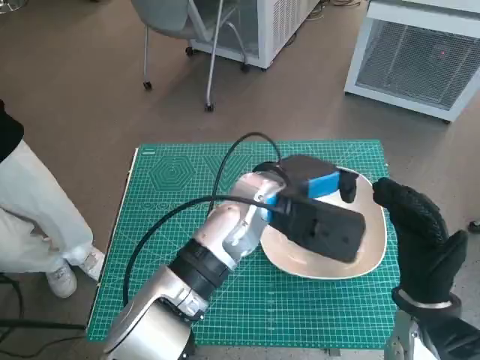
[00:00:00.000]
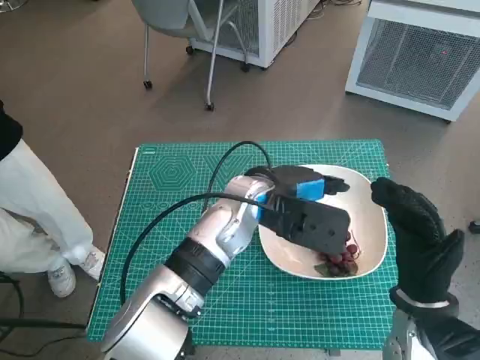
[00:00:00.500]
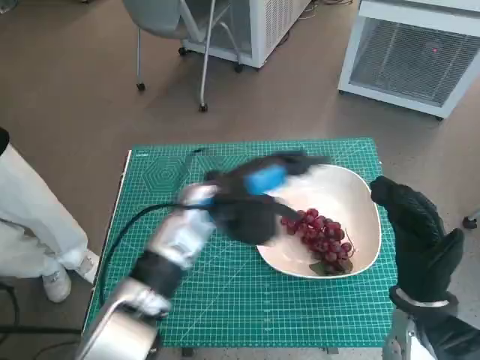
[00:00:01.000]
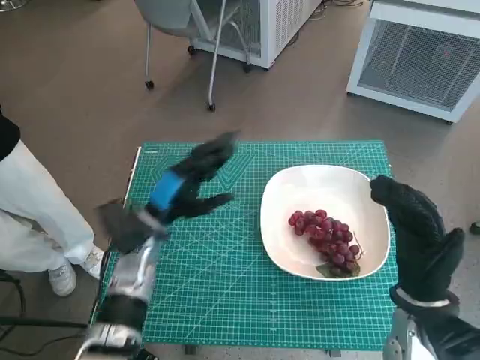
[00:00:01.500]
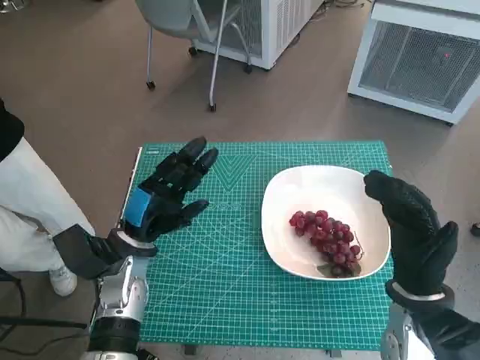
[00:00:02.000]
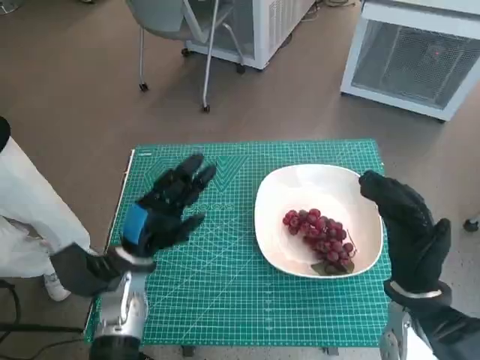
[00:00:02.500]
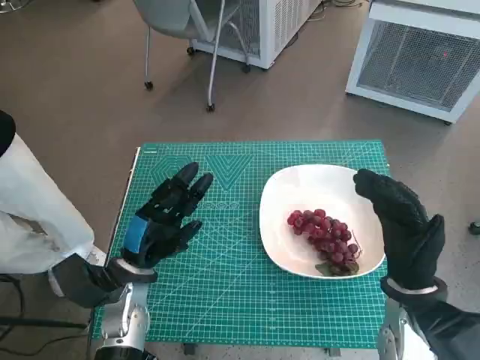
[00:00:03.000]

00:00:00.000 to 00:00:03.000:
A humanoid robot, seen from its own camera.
Task of the whole recording: Pick up the grapes and put them on the plate.
00:00:00.000 to 00:00:01.500: The left hand heads to the left and downward, covering approximately 20 cm.
00:00:01.500 to 00:00:03.000: The left hand heads backward and downward, covering some 10 cm.

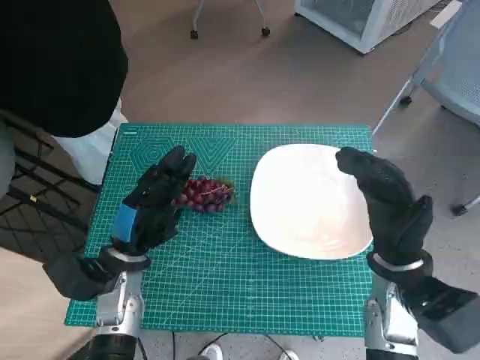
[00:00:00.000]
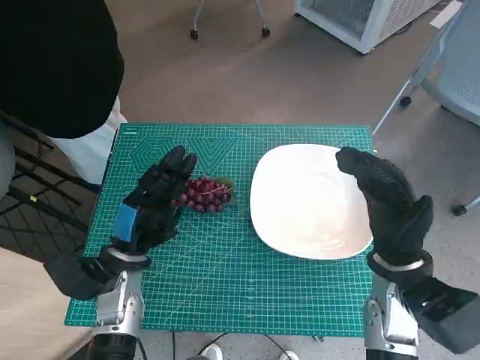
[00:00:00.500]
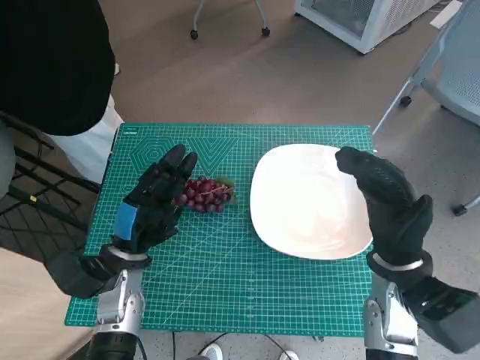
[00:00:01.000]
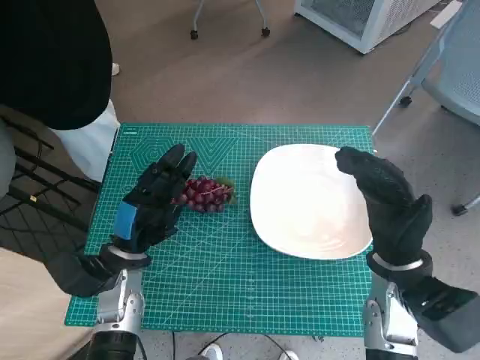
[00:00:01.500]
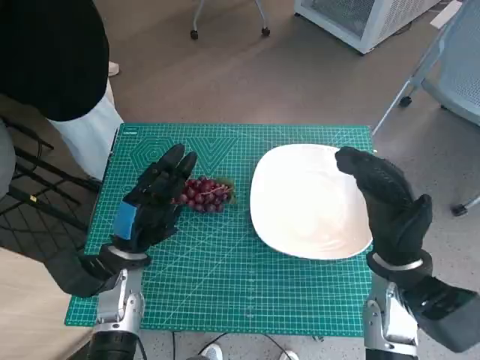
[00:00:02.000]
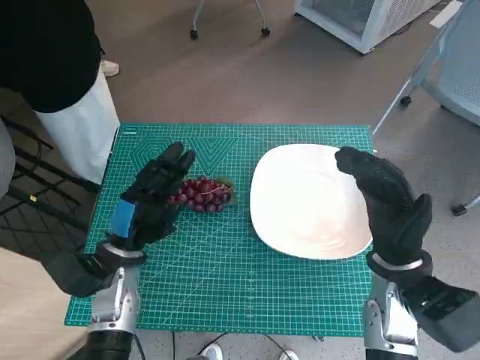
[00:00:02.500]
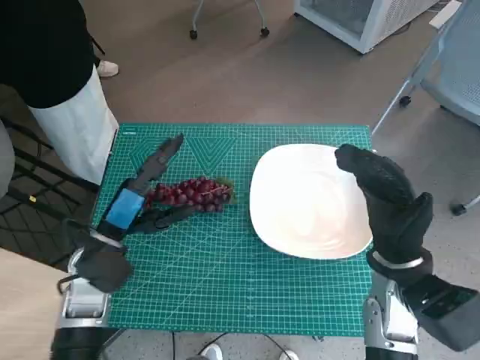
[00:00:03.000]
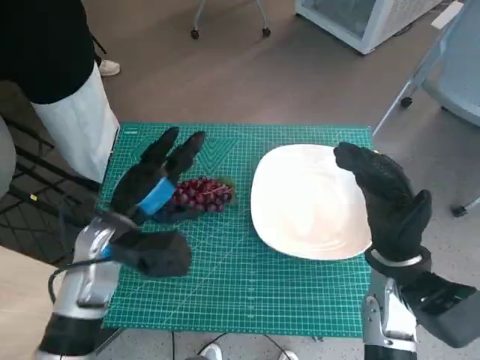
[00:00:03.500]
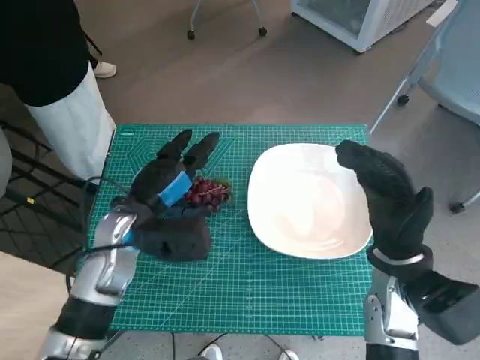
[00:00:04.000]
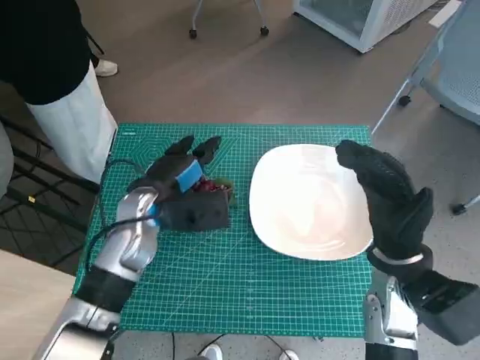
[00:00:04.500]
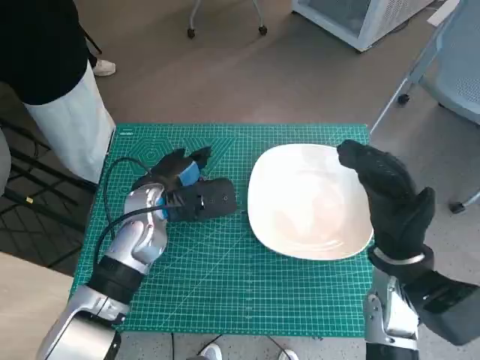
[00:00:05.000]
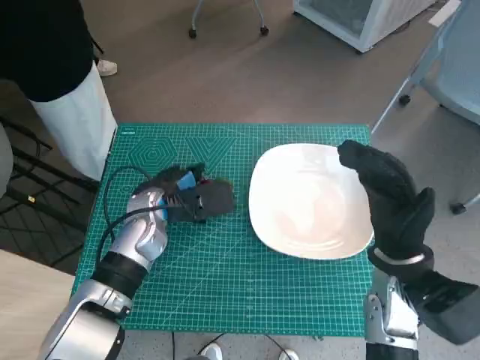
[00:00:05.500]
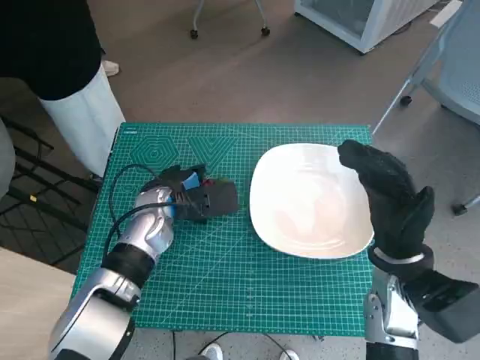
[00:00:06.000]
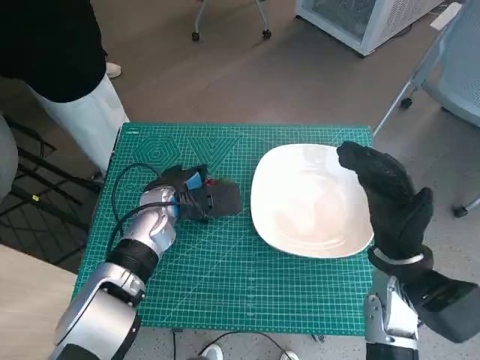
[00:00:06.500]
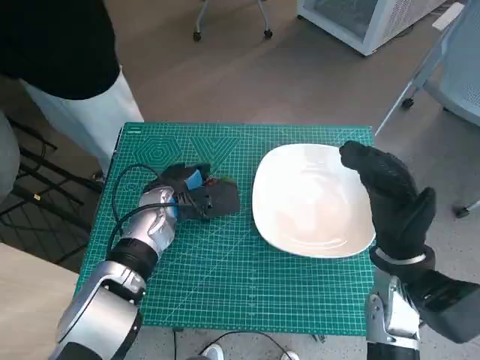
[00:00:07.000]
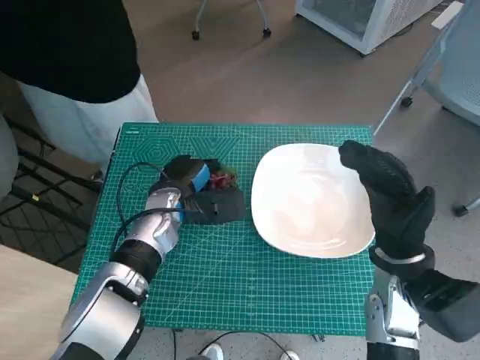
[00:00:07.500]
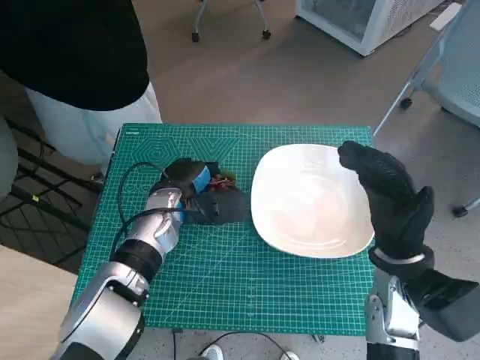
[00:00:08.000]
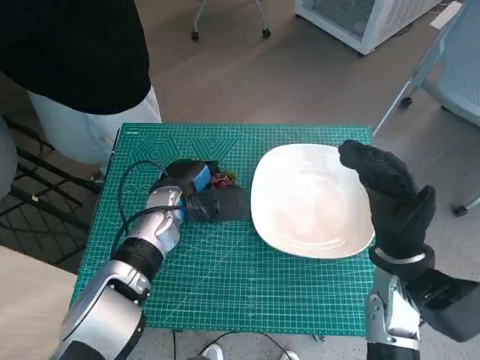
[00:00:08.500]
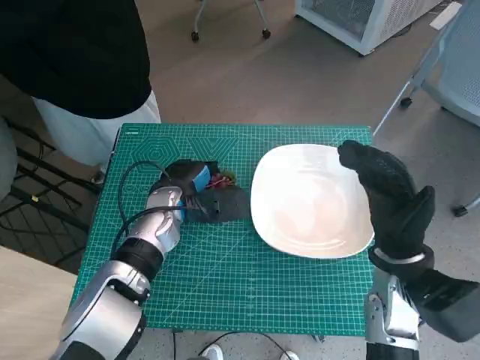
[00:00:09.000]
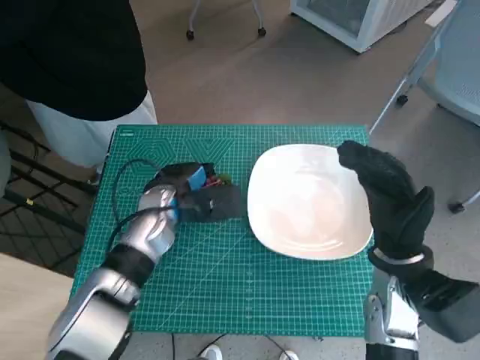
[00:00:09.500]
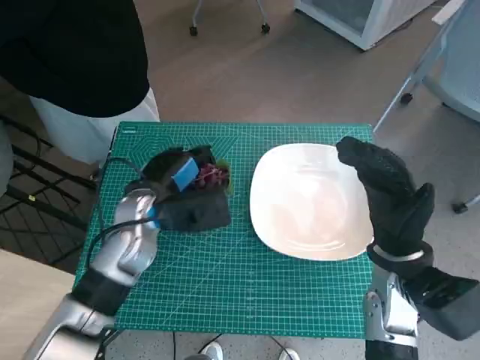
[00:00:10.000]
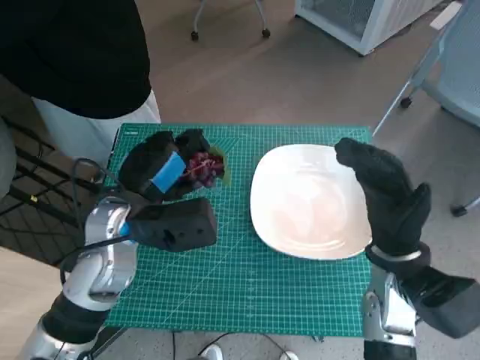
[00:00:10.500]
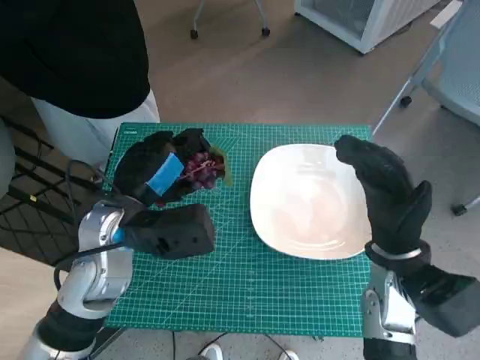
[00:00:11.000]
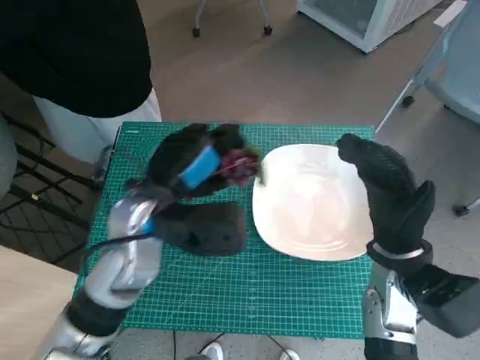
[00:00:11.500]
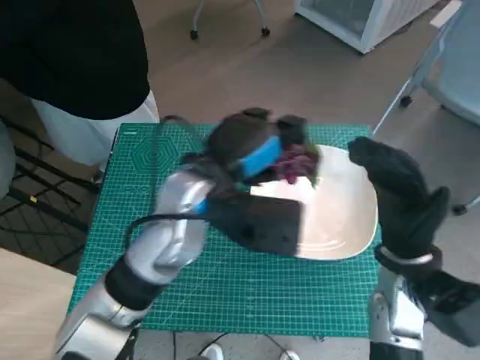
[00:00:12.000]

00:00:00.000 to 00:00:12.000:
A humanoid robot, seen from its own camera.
Task of the whole recording: Pick up the grapes and put them on the plate.
Step, 00:00:00.000 to 00:00:07.500: Grasp the grapes with left hand.
00:00:02.000 to 00:00:04.000: The left hand travels upward by roughly 5 cm.
00:00:04.000 to 00:00:06.000: The left hand travels forward by about 5 cm.
00:00:06.000 to 00:00:08.000: The hands stay close to where they were, moving slightly.
00:00:08.000 to 00:00:10.000: The left hand changes place by approximately 5 cm.
00:00:10.000 to 00:00:12.000: The left hand moves upward and to the right, about 10 cm.

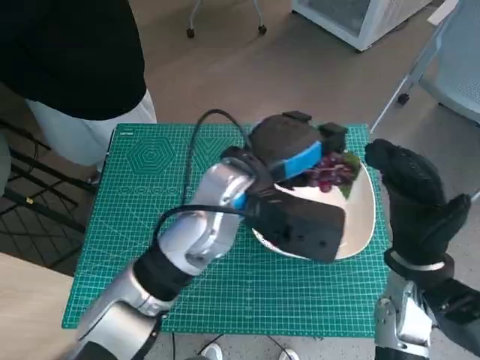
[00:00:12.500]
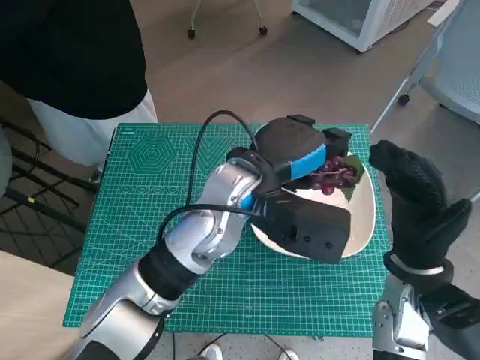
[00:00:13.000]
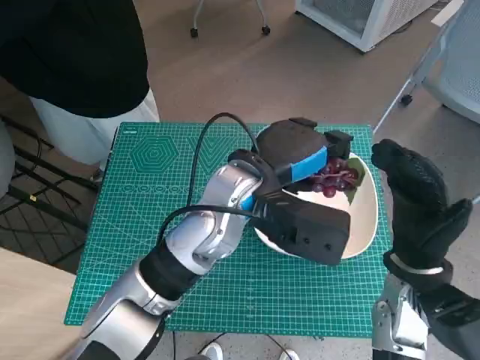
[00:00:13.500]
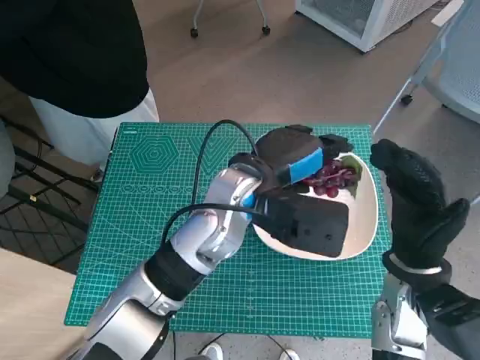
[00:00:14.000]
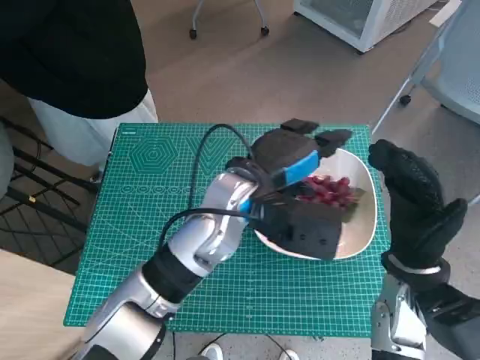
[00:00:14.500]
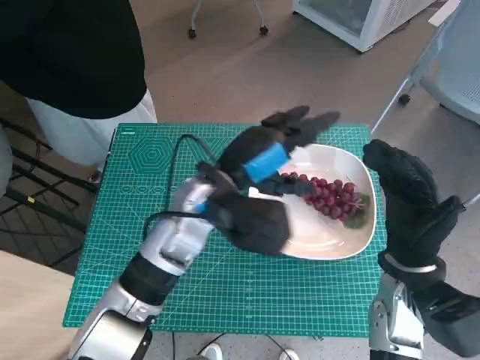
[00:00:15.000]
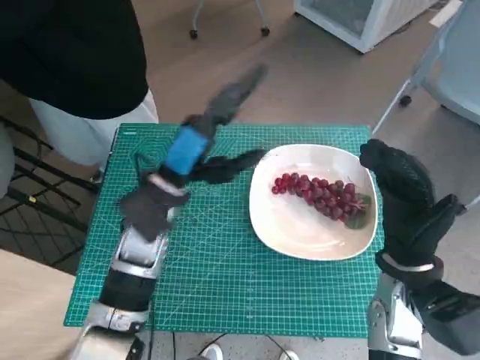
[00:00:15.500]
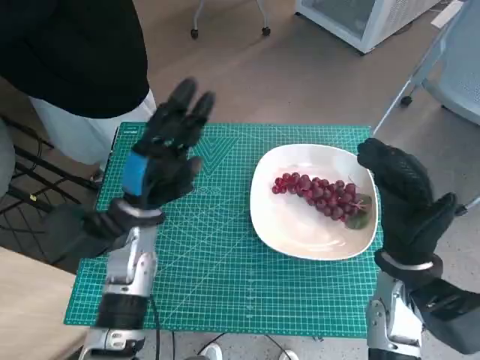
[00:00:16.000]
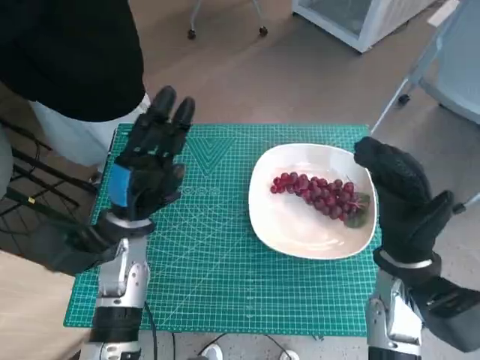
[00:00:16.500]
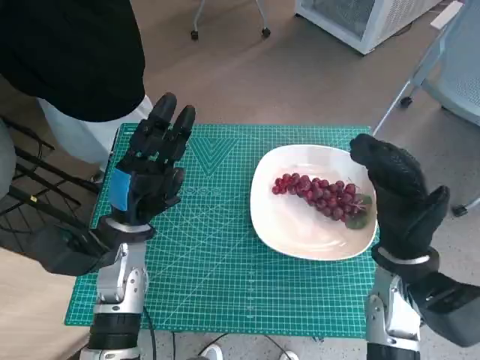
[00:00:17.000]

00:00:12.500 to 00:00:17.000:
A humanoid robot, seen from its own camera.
Task of the whole recording: Pick up the grapes and put them on the plate.
Step, 00:00:12.500 to 00:00:14.500: Place the grapes in the plate with left hand.
00:00:12.500 to 00:00:14.500: There are only small adjustments of the hands.
00:00:14.500 to 00:00:17.000: The left hand shifts some 20 cm to the left and downward.
